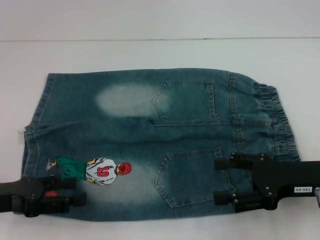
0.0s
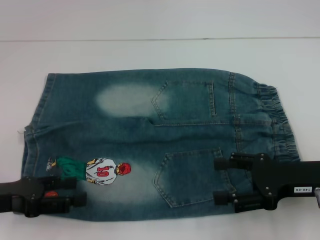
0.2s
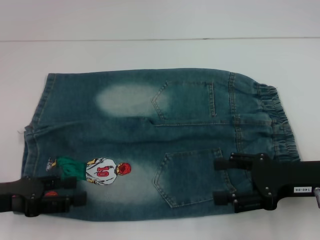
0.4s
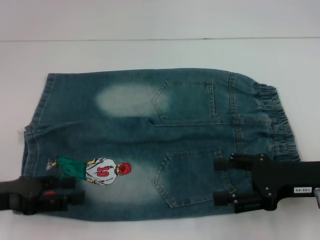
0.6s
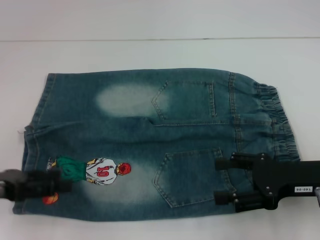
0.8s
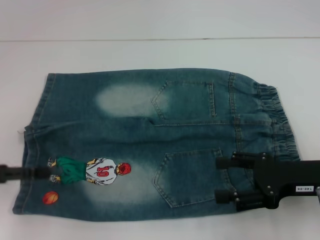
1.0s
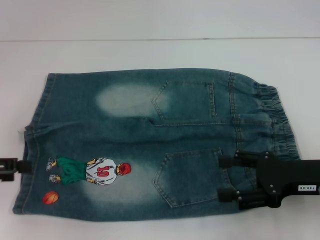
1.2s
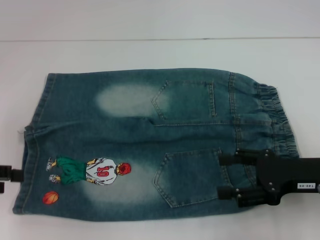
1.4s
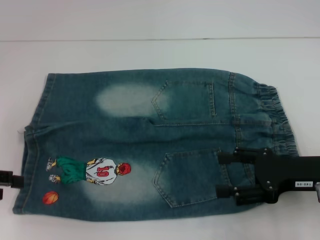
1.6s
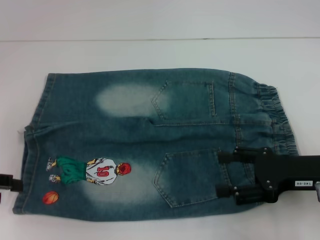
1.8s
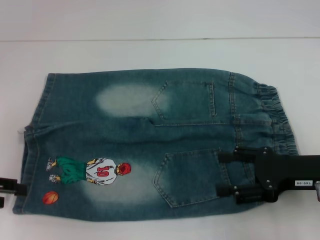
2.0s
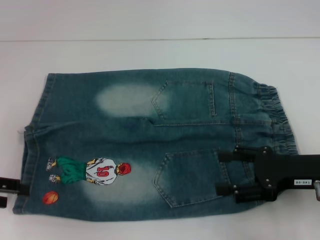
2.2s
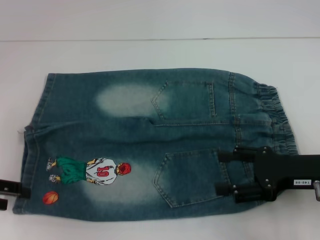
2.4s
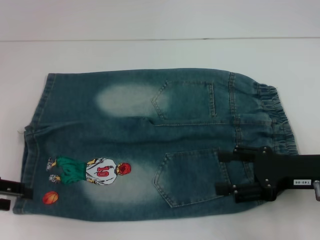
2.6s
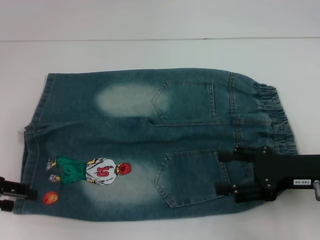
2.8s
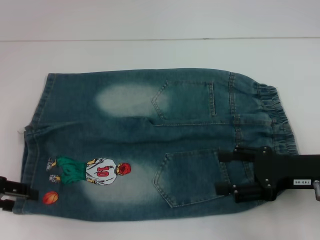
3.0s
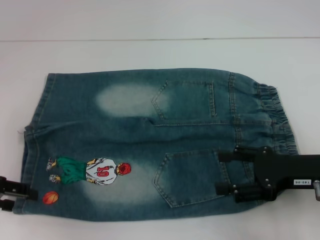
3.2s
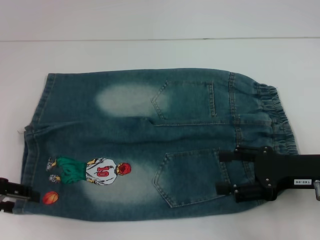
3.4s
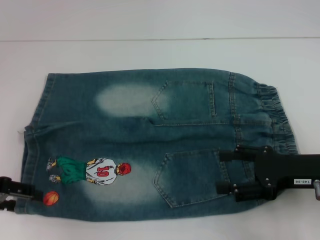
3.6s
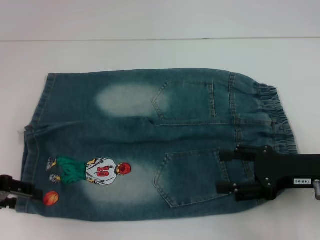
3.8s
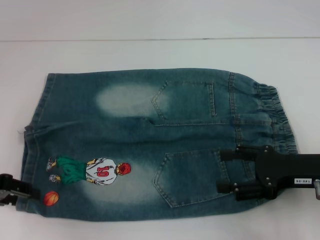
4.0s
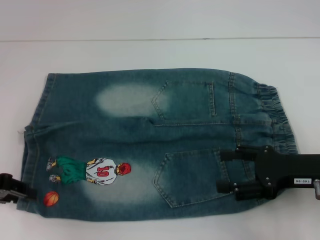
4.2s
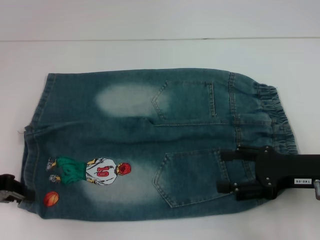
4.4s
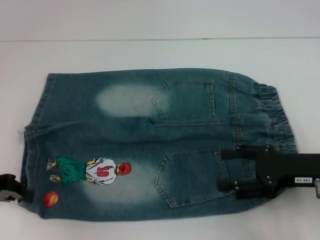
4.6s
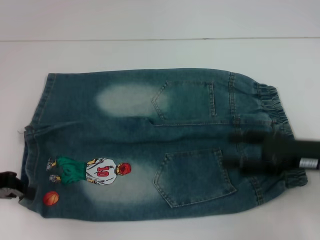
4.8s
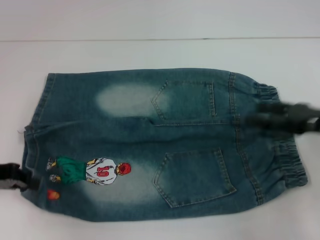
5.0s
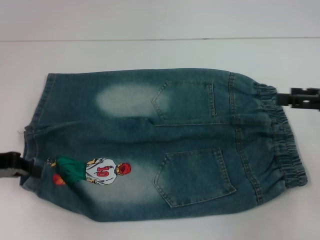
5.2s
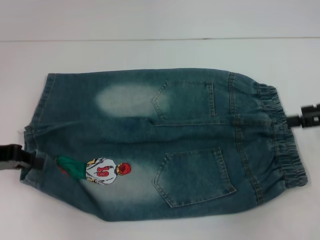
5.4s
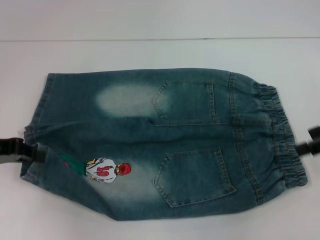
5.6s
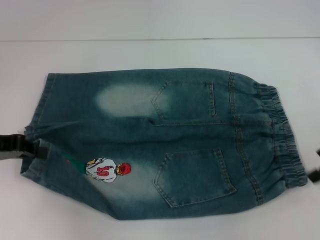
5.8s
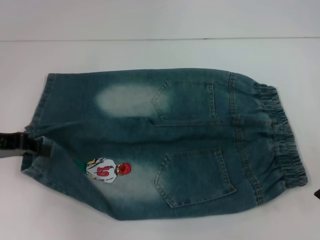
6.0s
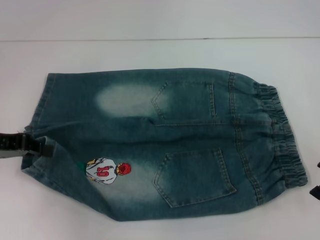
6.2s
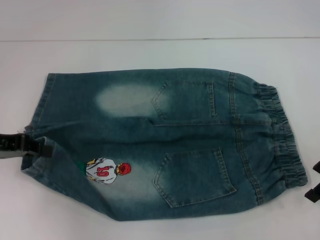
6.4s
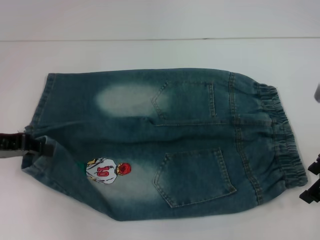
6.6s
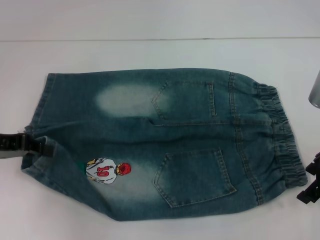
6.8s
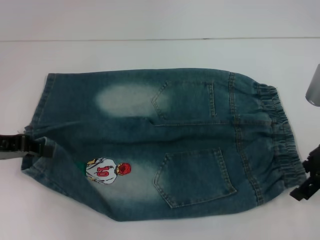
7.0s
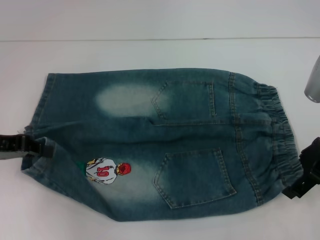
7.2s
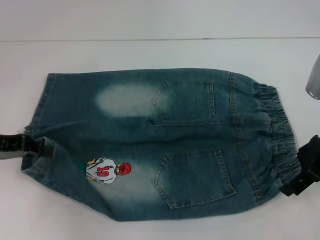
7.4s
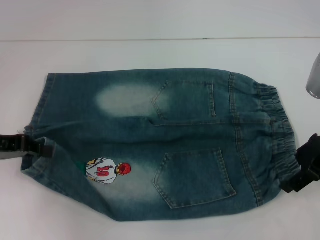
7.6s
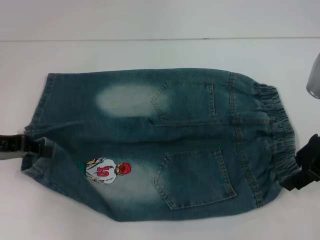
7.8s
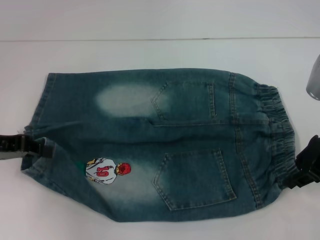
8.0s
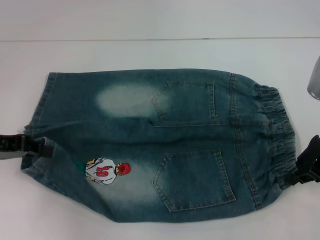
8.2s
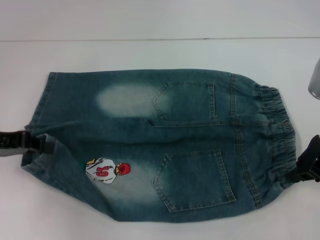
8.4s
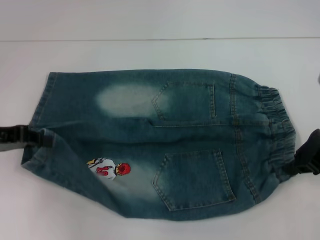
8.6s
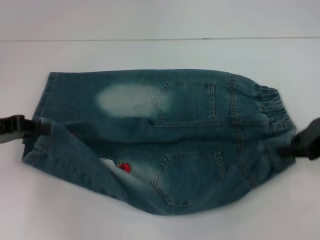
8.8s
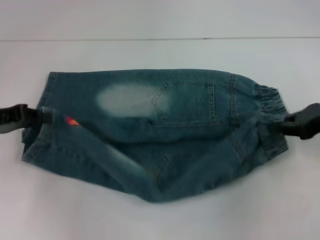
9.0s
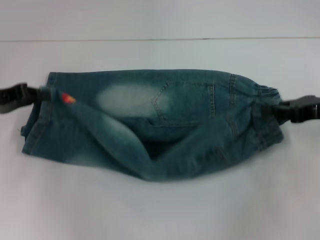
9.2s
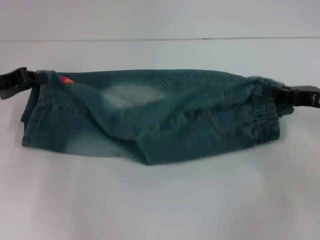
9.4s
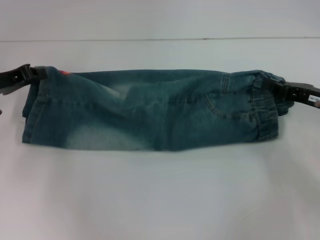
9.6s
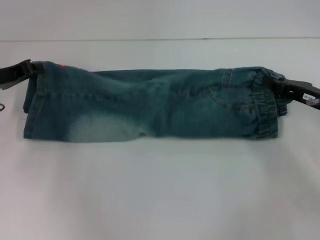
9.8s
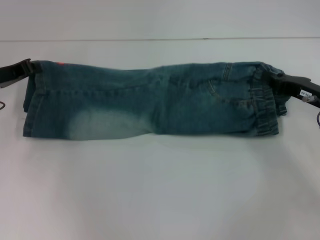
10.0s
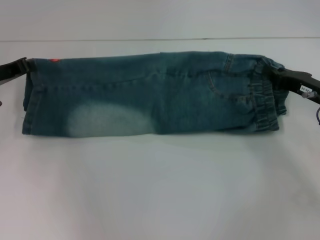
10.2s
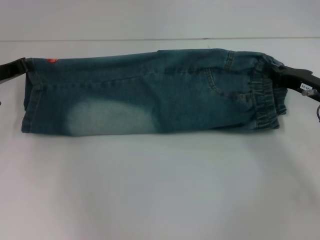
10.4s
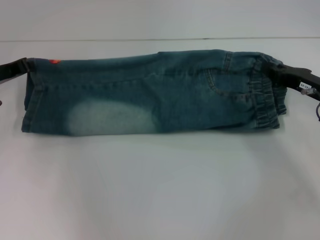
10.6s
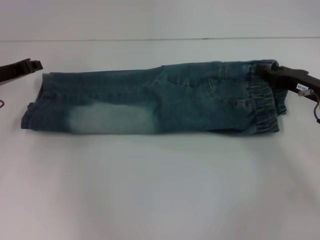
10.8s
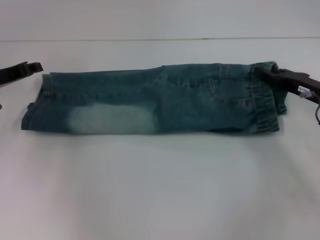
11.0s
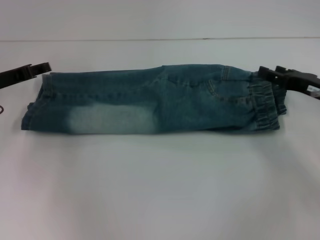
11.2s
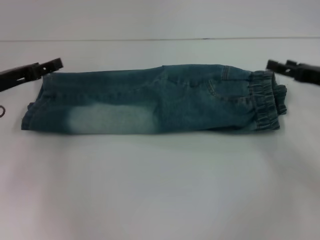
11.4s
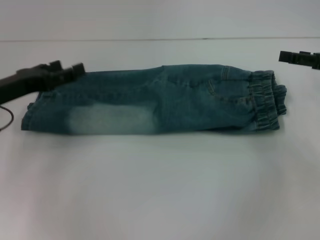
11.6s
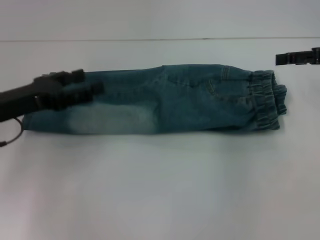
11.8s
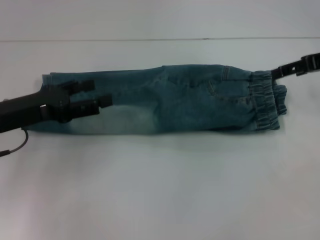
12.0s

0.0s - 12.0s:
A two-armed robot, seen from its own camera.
Step, 0.0s - 4.0s: Grab the lower left pant leg with your left hand.
Step, 4.2s - 8.0s: Hold the lower right waistband with your right hand.
Step, 8.2s - 11.0s: Fold upward with your right hand.
0.0s - 1.6s: The left gripper shifts approximately 10 cm to the left and upward.
1.6s - 3.0s: There are only small adjustments of the grippers.
3.0s - 4.4s: The left gripper closes.
4.4s - 6.0s: The right gripper travels upward and forward by some 10 cm.
6.0s - 7.6s: The right gripper shifts by about 5 cm.
7.6s - 9.0s: The right gripper closes its fingers.
9.0s - 10.4s: The left gripper goes roughly 10 cm forward. Meanwhile the right gripper heads downward, covering some 10 cm.
10.4s - 12.0s: The left gripper goes some 10 cm backward, and opens up. Meanwhile the right gripper goes approximately 15 cm upward, and opens.

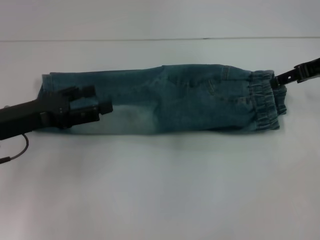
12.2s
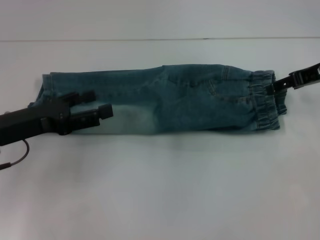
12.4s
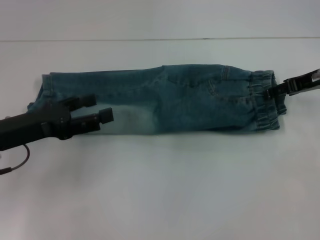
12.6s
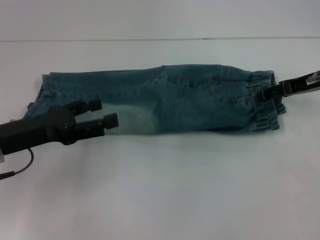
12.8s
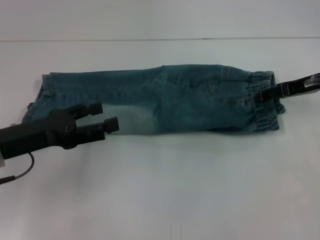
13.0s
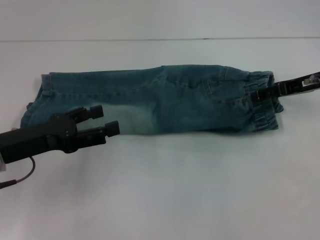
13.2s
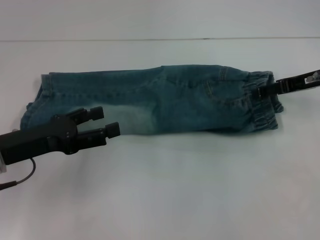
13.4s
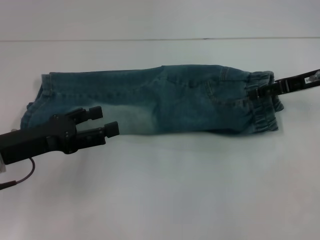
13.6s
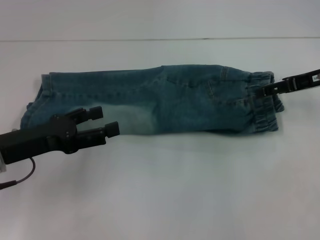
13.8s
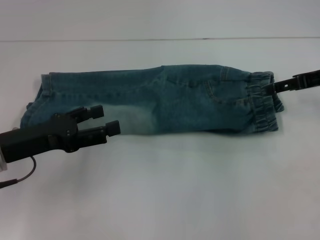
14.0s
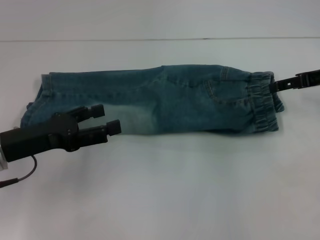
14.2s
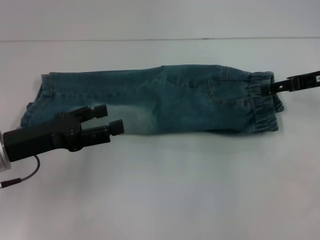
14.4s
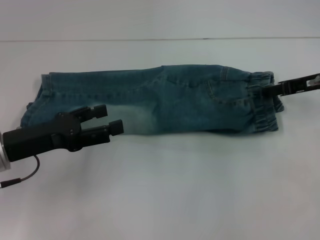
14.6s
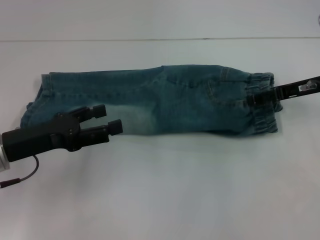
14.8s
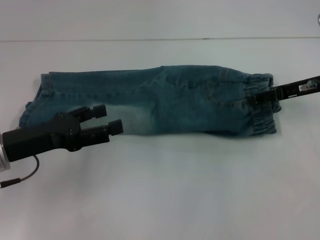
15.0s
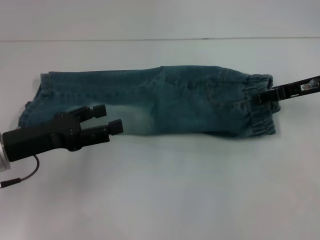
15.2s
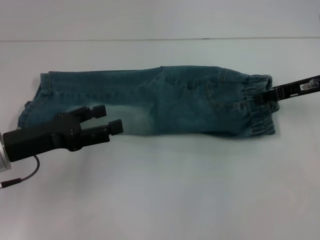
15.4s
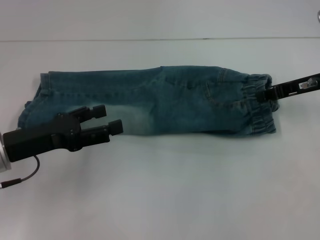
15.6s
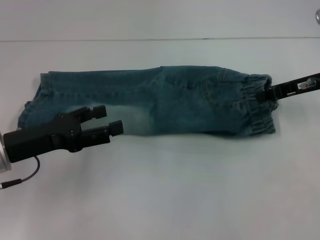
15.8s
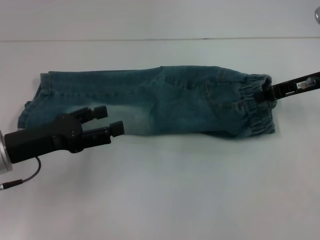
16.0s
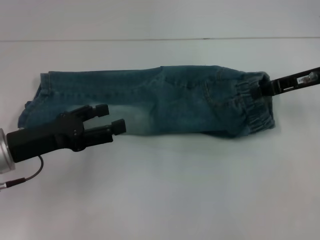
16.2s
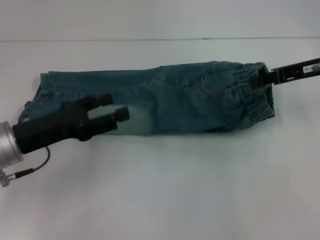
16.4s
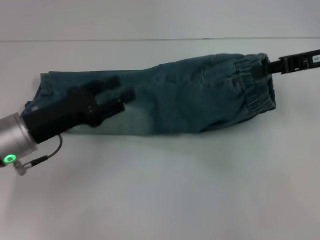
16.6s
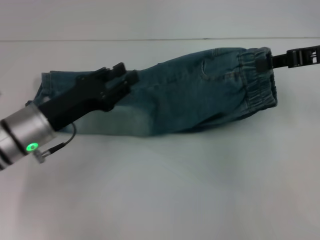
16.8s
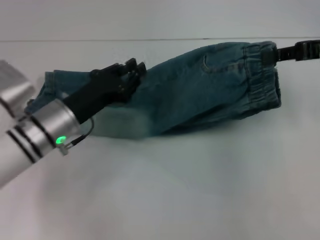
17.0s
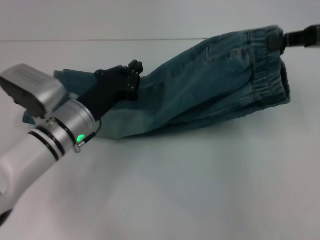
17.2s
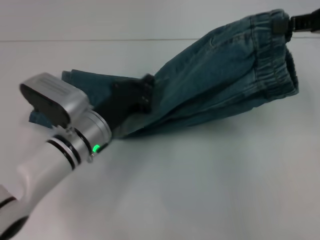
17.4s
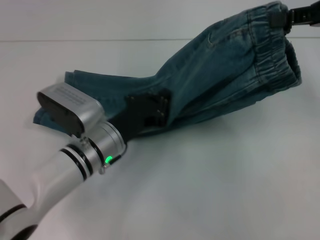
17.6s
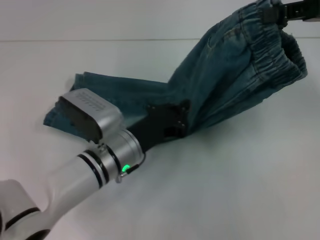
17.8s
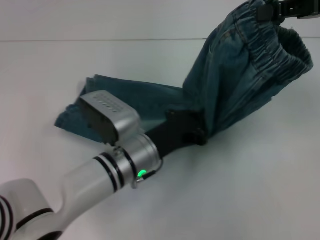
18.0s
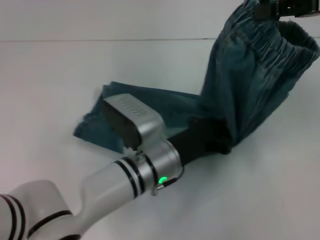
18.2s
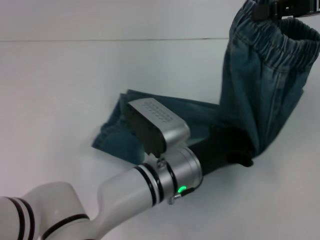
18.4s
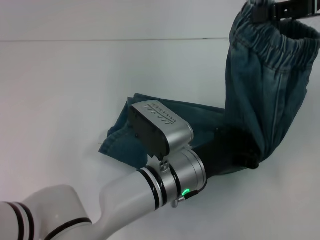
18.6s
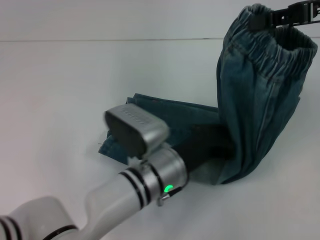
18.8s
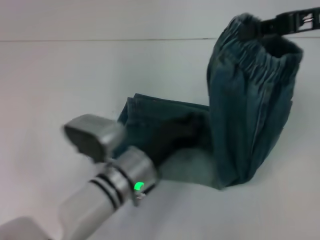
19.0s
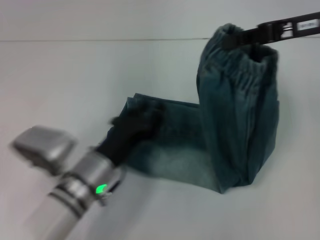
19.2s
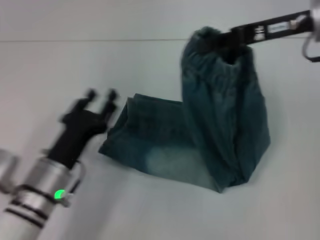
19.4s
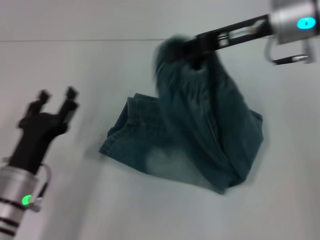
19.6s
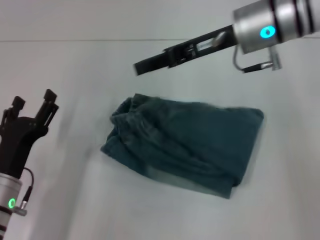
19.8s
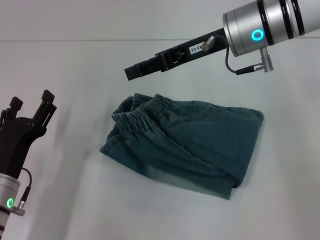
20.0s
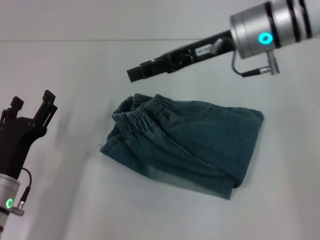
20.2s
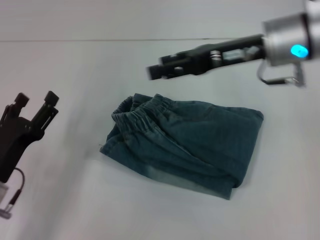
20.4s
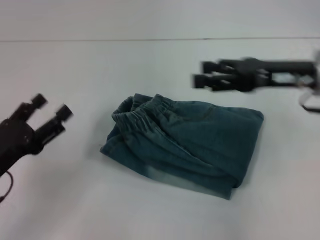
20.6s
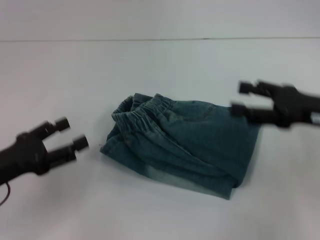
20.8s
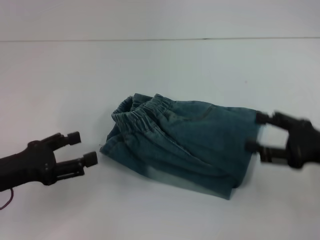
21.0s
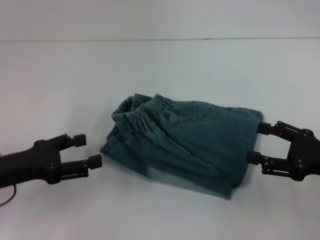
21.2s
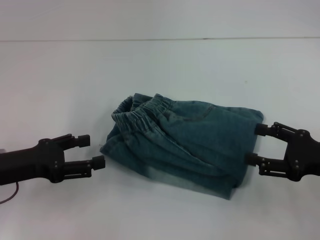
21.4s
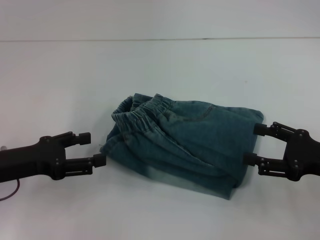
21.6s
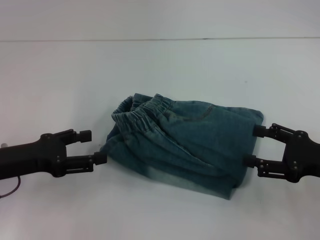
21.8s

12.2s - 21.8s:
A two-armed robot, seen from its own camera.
Step, 12.2s - 15.6s: Grab the waistband with your right hand.
Step, 15.8s - 18.6s: Press the middle of the pants with your left hand.
Step, 19.0s - 20.4s: Fold to the left with your right hand.
12.2s - 13.8s: There are only small adjustments of the grippers.
13.8s - 15.4s: The right gripper closes its fingers.
15.4s - 17.0s: The right gripper heads upward, covering approximately 5 cm, and closes. Meanwhile the left gripper heads to the right, covering about 10 cm, and closes its fingers.
17.0s - 18.6s: The left gripper heads to the right, covering approximately 20 cm, and closes up. The right gripper goes about 5 cm upward.
18.6s - 20.2s: Both grippers travel together to the left, roughly 20 cm. The left gripper opens up, while the right gripper opens.
20.2s - 21.8s: The right gripper is displaced to the right, backward and downward by about 25 cm, and opens. Meanwhile the left gripper moves upward, approximately 5 cm.
